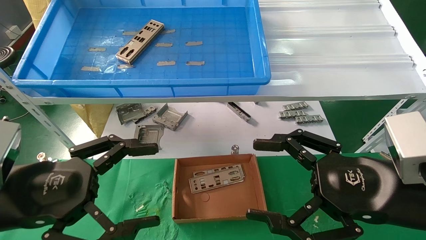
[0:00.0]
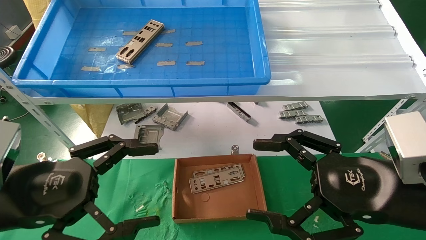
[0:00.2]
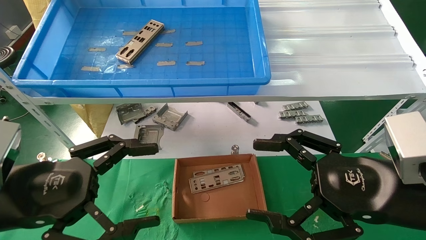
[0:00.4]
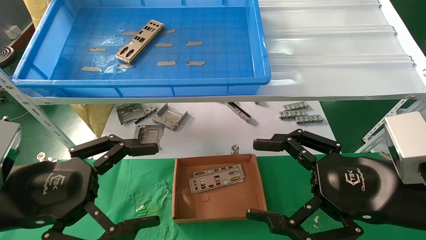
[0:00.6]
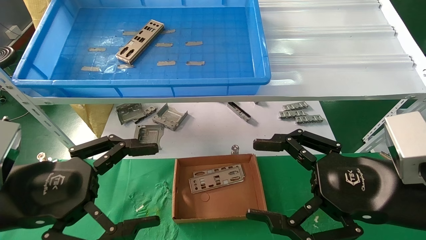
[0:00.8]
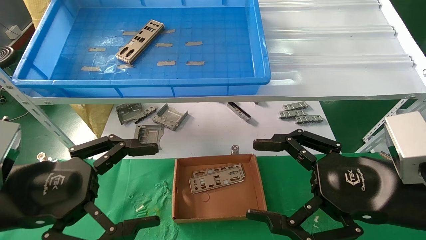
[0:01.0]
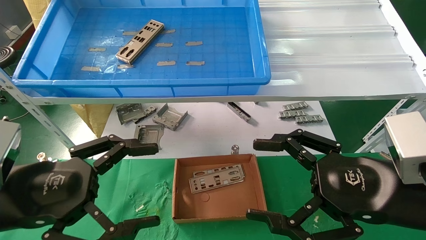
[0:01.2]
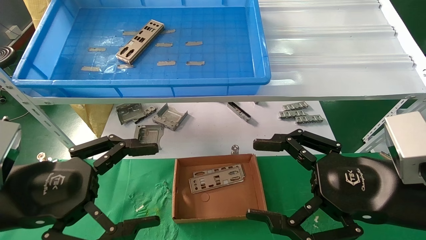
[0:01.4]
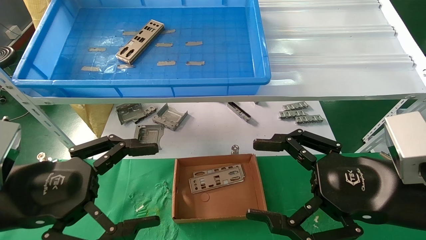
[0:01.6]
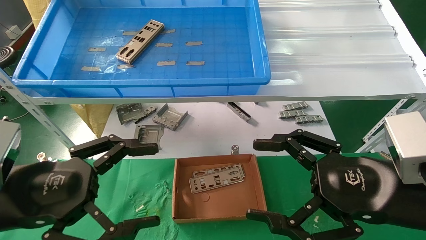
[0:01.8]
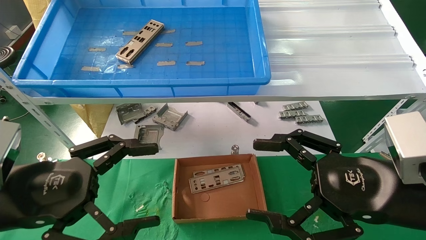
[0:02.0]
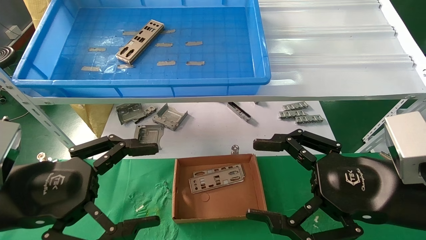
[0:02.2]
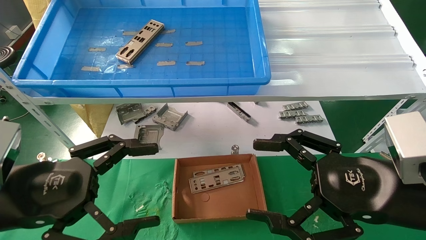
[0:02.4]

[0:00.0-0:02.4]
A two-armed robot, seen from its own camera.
Task of the whole recording: pick up the parts on the tray and put them in the cardboard box.
0:00.0 to 0:02.4: The two grippers keep their place.

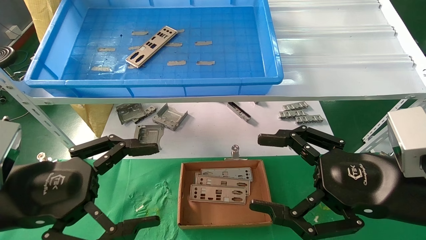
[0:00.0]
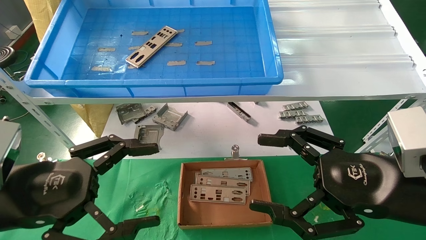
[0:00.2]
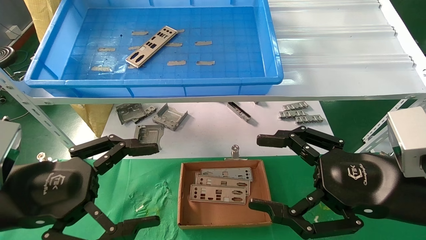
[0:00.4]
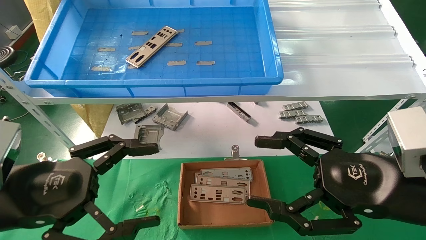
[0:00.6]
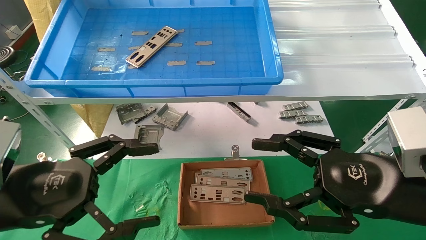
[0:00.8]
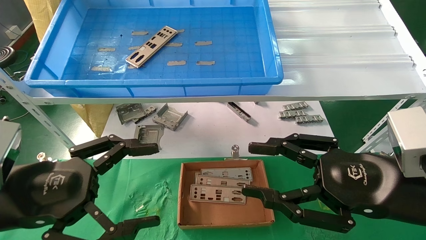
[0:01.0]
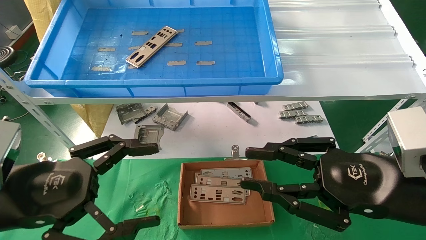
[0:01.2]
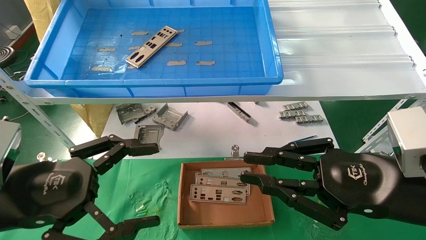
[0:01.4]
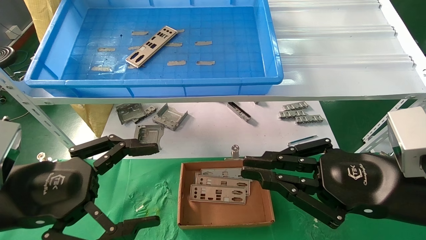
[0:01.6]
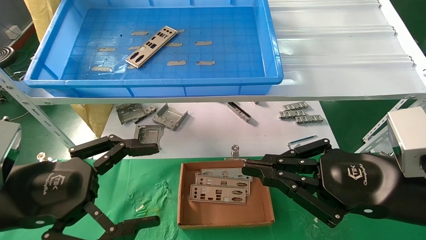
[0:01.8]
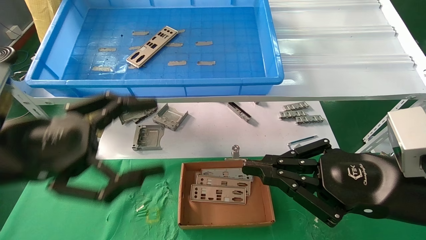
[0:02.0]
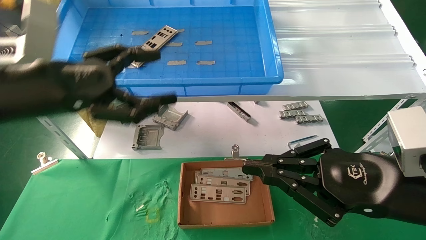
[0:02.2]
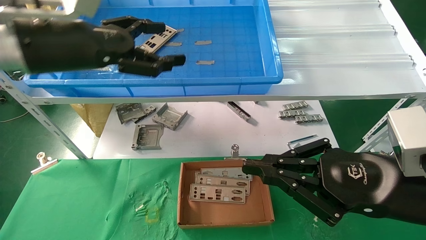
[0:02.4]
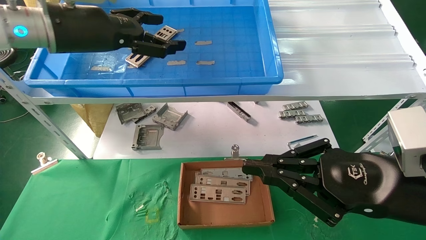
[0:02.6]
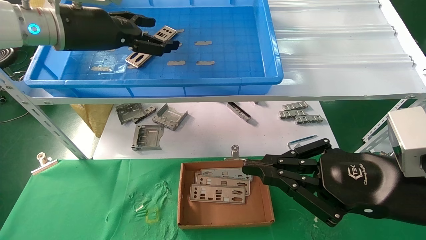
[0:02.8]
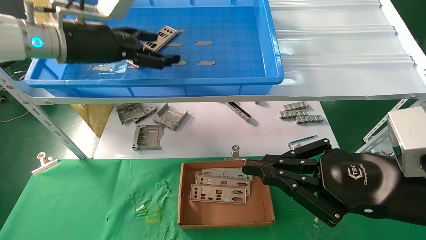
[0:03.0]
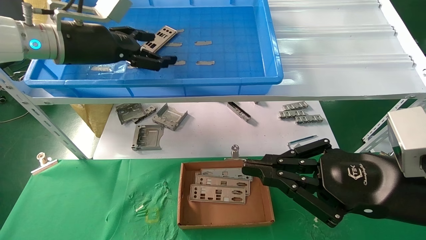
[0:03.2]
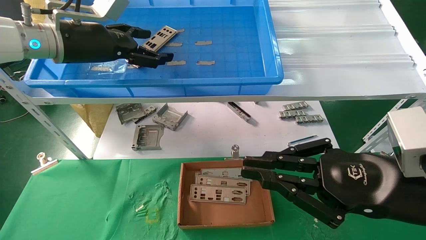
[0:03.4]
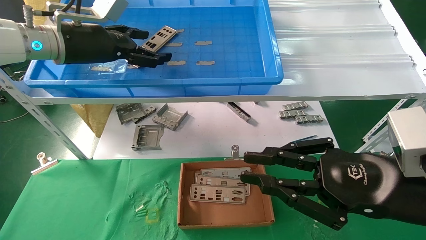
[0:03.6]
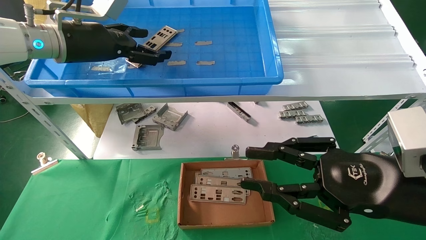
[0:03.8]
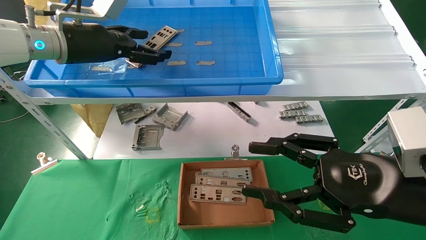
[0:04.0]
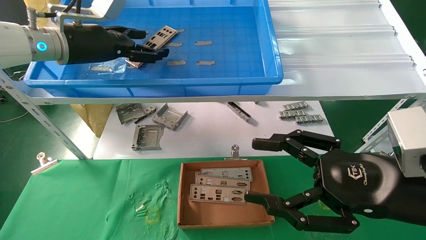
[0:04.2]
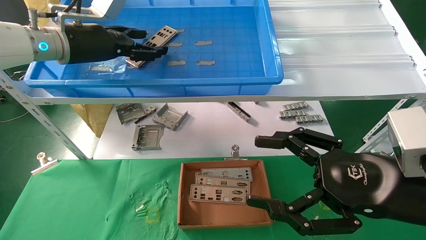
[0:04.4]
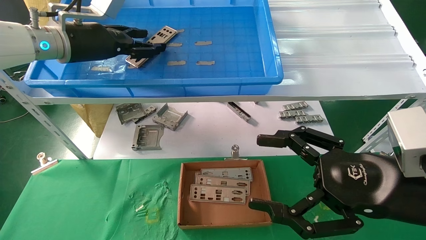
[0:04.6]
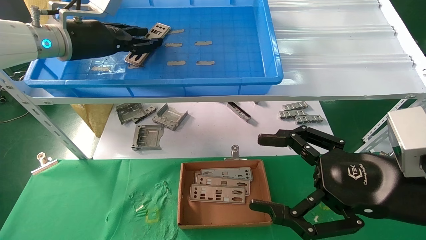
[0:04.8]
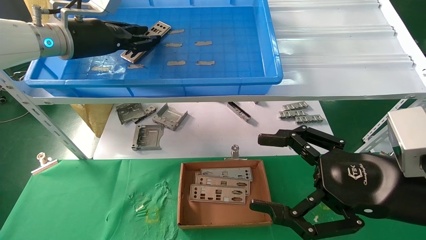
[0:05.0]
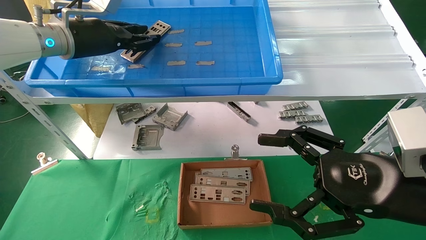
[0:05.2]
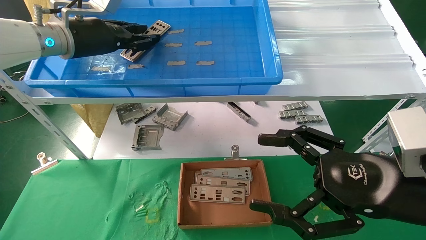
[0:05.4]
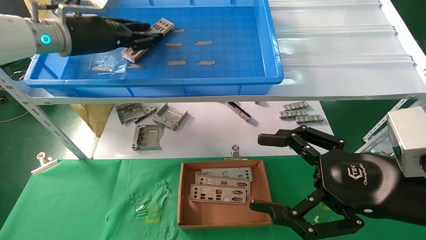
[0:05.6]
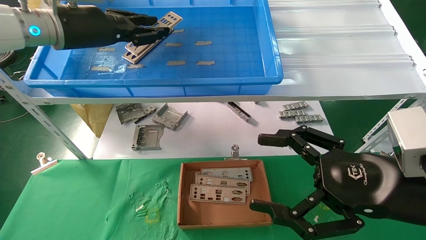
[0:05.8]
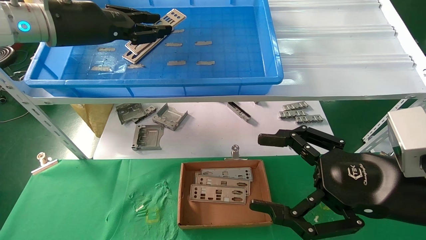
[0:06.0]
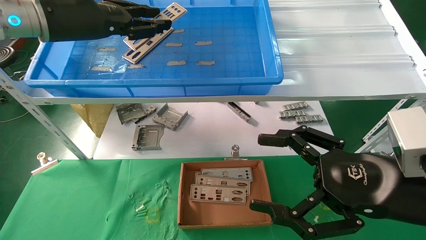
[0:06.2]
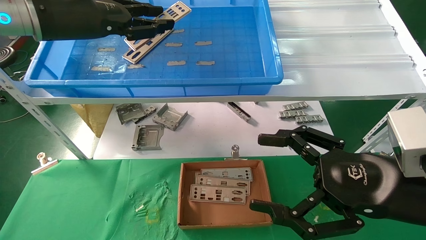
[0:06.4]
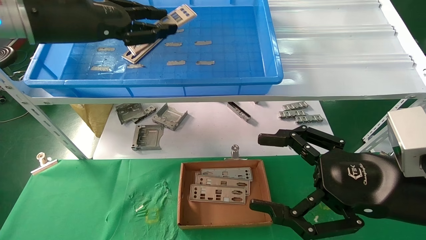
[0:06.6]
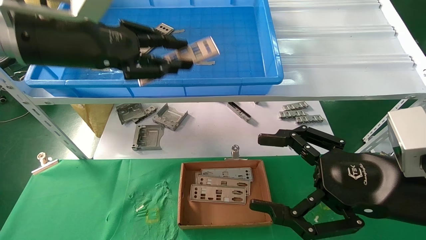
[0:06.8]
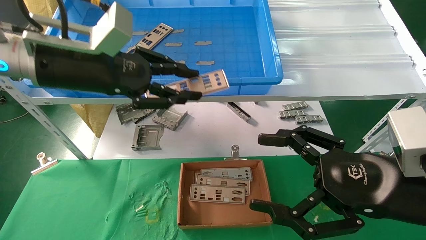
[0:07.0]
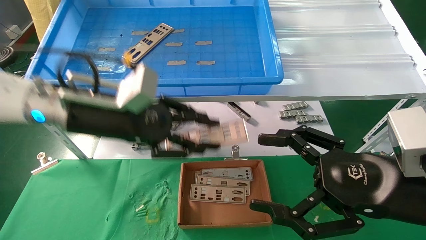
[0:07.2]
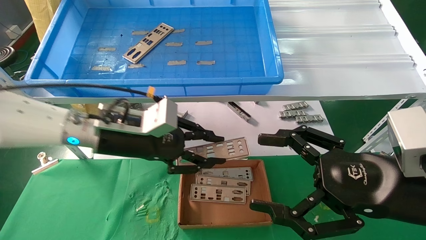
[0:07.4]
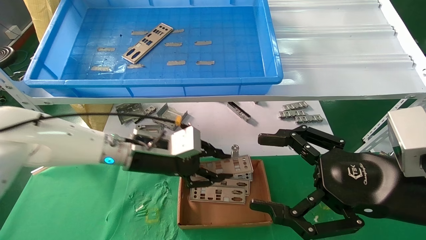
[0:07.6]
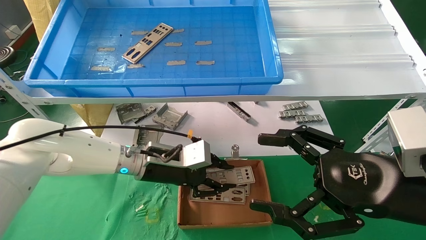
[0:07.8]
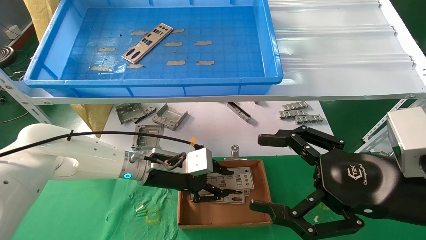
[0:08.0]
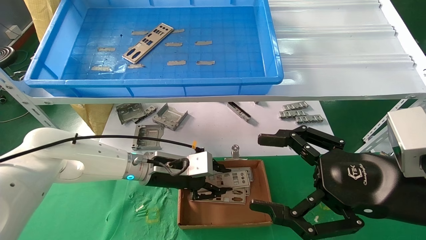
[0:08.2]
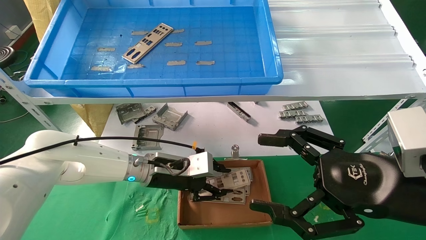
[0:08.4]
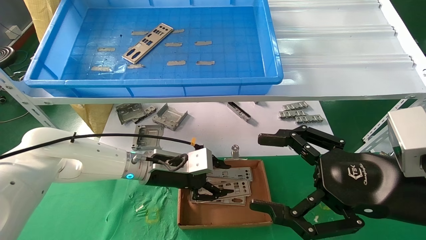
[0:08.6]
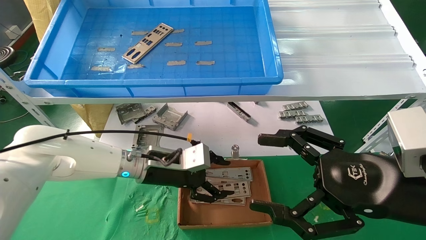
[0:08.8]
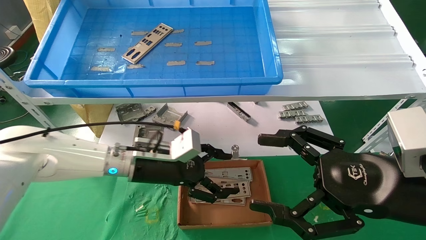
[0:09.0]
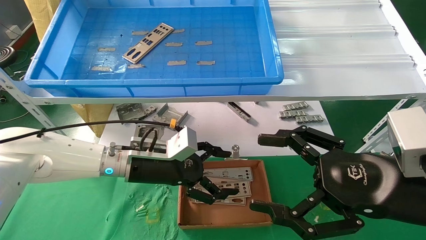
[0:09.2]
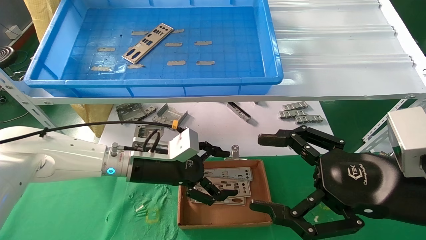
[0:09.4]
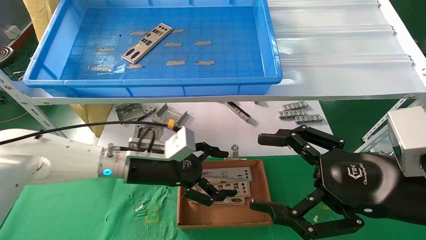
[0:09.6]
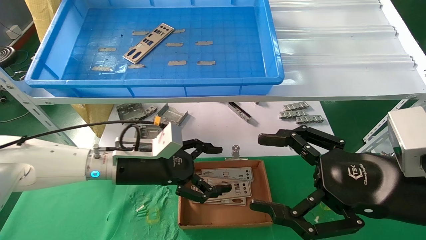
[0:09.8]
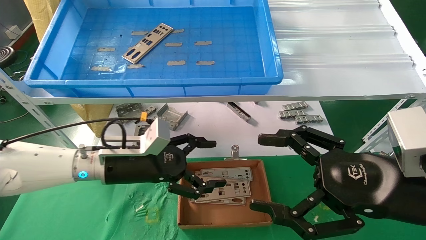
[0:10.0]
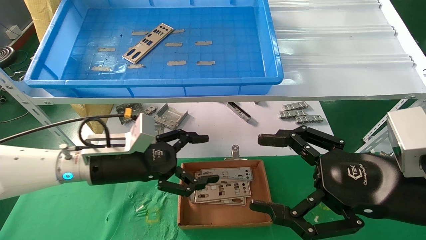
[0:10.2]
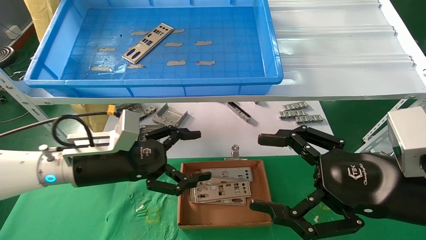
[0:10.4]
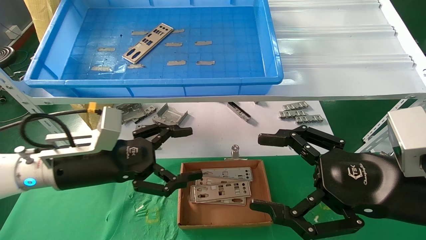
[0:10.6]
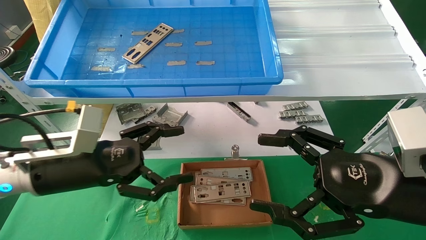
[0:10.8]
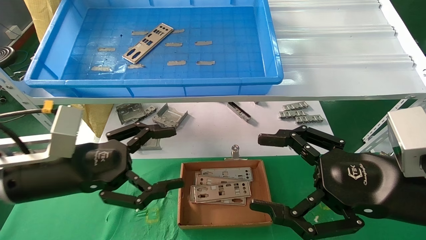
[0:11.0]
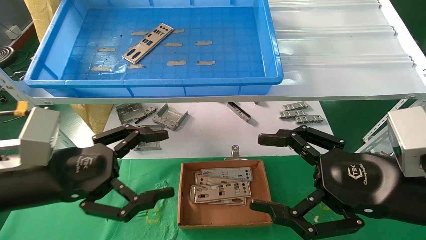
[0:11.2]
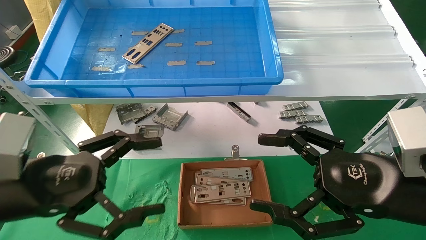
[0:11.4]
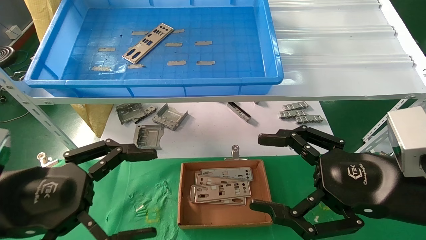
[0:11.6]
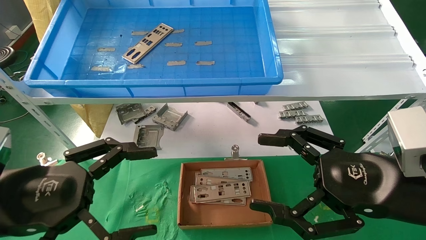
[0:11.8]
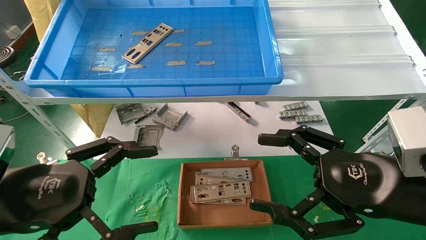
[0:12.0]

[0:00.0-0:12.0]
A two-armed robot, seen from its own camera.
Task of the whole recording: pick up the parts on the tray and put them in the cardboard box.
Step, 0:02.2 to 0:05.0: Pick up the IO bracket from the container box.
Step, 0:05.2 to 0:08.8: Place the IO bracket into the ingredient slot.
0:00.0 to 0:01.6: The right gripper closes up.
0:01.6 to 0:03.0: The left gripper is displaced forward and upward by some 25 cm.
0:03.0 to 0:04.4: The right gripper opens.
0:04.4 to 0:06.0: The left gripper closes its fingers.
0:06.0 to 0:07.6: The left gripper goes roughly 25 cm downward and to the right.
0:07.6 to 0:09.0: The left gripper opens its fingers.
0:09.0 to 0:10.4: The left gripper heads to the left and backward, covering some 10 cm, and opens its fingers.
0:10.4 to 0:12.0: The left gripper is displaced backward and to the left by some 15 cm.

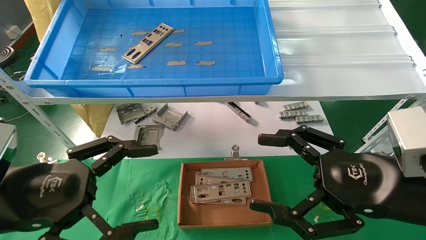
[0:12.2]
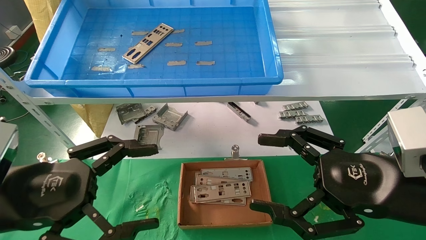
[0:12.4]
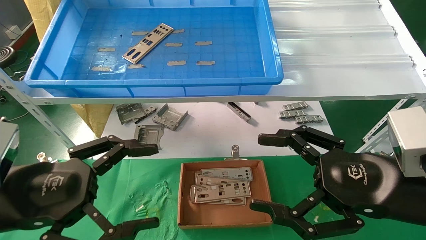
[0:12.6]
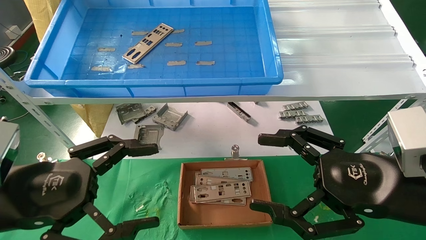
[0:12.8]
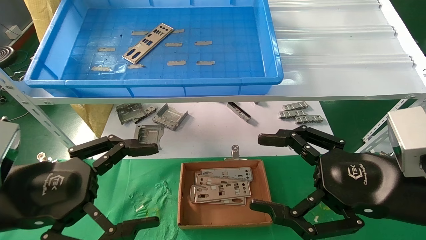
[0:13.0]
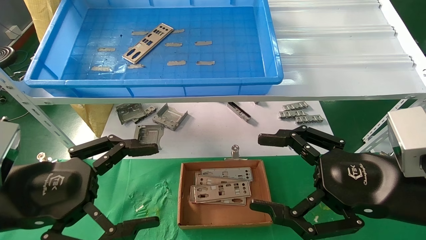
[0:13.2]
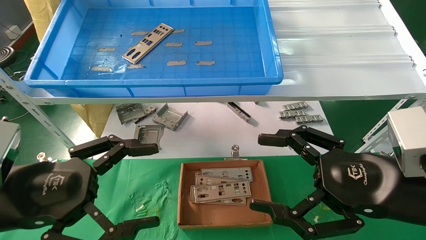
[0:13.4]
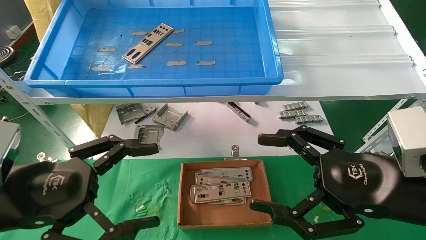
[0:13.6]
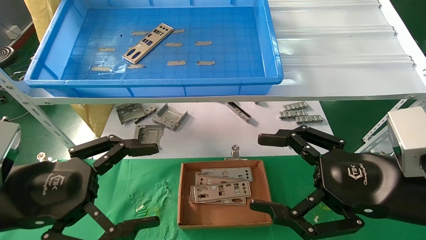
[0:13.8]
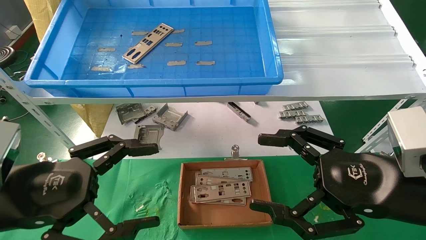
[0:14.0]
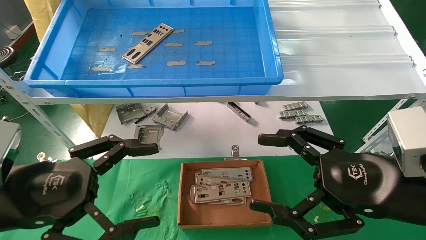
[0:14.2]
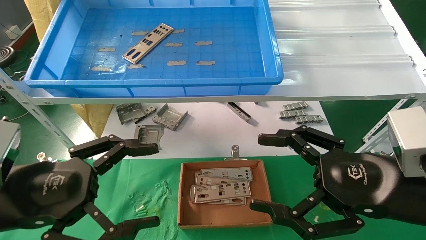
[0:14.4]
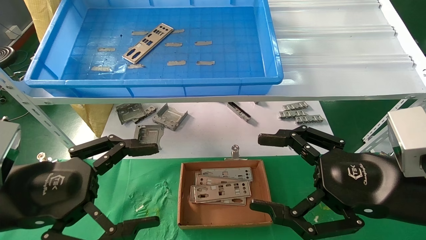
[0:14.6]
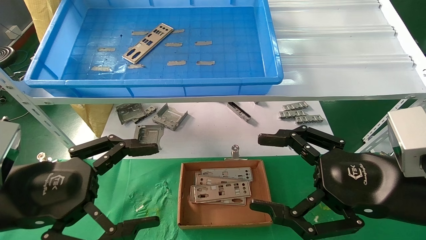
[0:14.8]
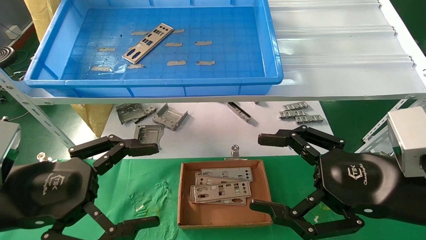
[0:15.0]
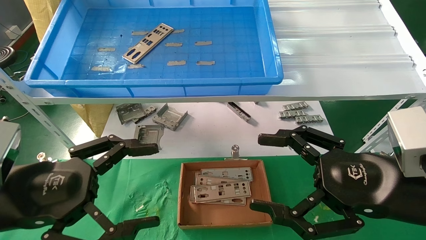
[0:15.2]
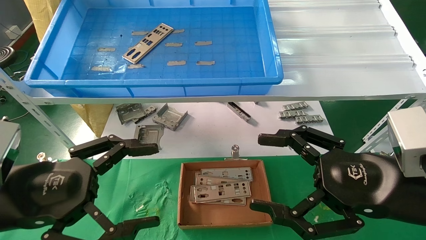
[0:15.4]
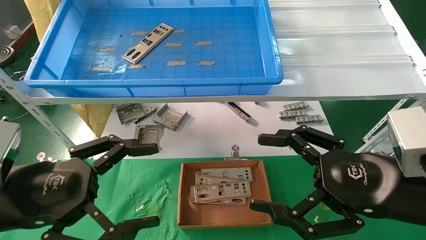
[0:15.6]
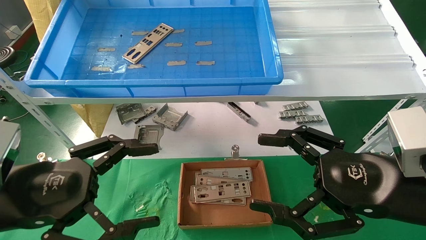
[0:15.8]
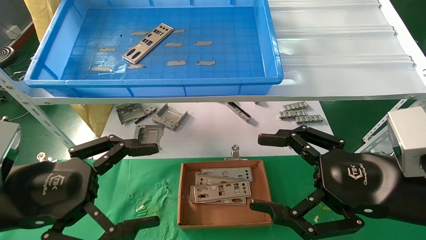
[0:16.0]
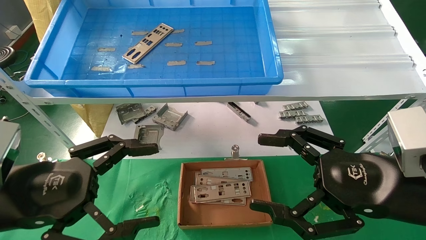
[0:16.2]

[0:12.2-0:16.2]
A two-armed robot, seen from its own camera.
Task of the whole recording: pick up the parts on the tray and put them in the cardboard box.
0:12.2 to 0:16.2: Neither gripper changes place.
